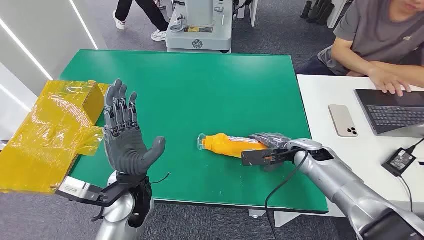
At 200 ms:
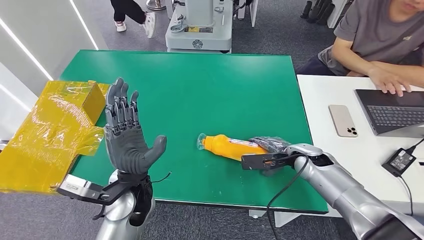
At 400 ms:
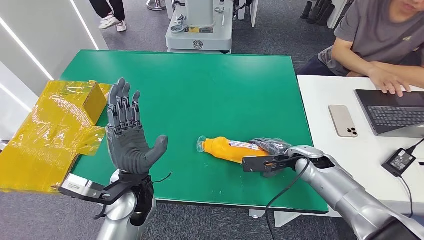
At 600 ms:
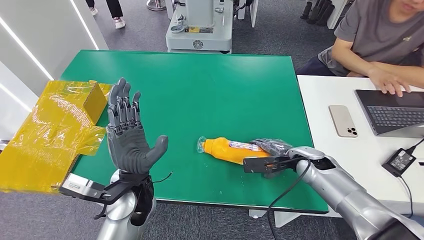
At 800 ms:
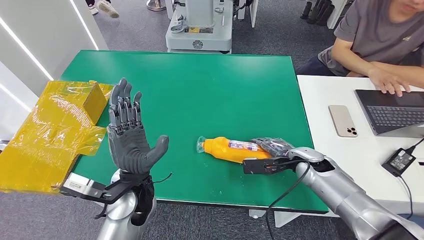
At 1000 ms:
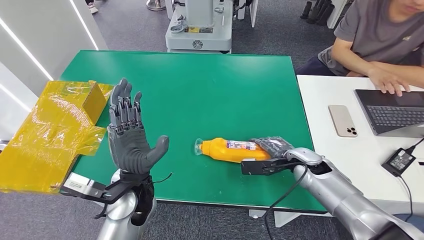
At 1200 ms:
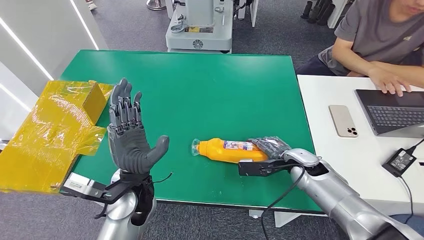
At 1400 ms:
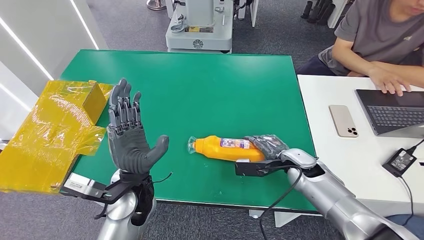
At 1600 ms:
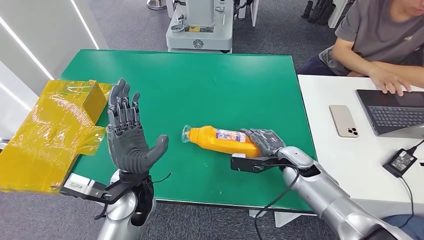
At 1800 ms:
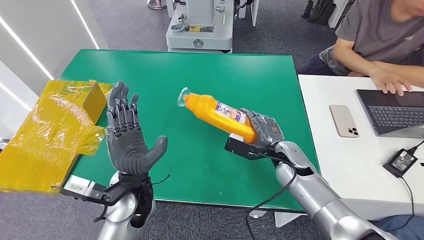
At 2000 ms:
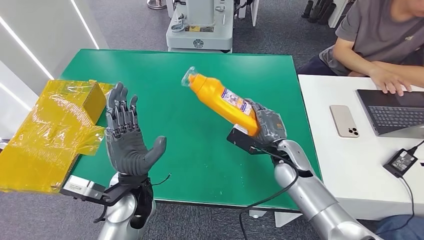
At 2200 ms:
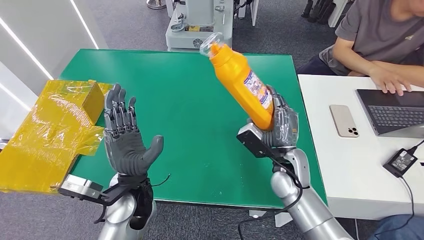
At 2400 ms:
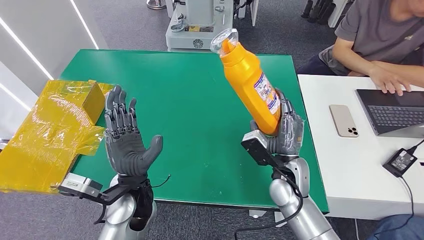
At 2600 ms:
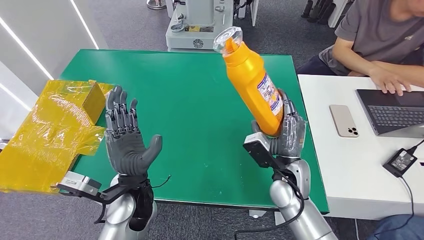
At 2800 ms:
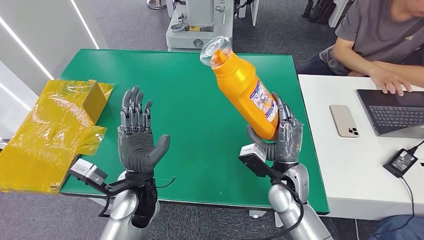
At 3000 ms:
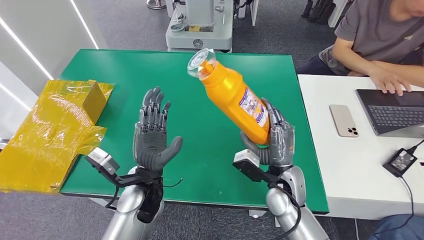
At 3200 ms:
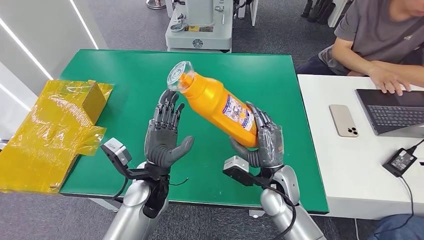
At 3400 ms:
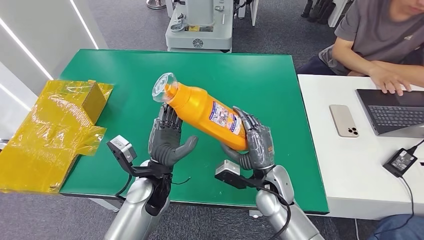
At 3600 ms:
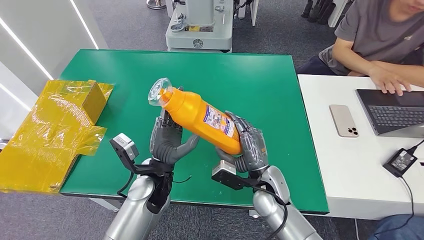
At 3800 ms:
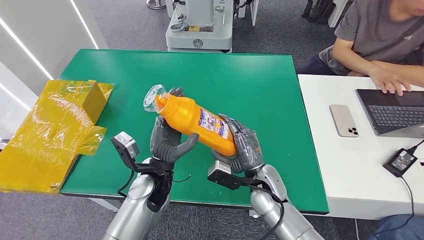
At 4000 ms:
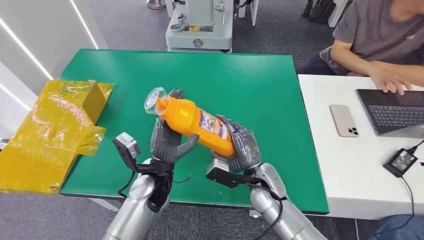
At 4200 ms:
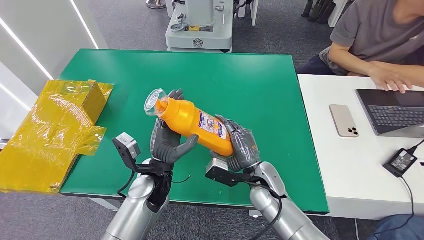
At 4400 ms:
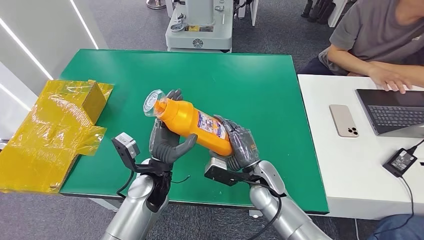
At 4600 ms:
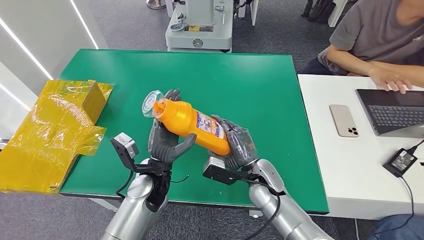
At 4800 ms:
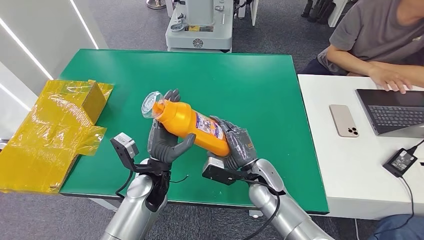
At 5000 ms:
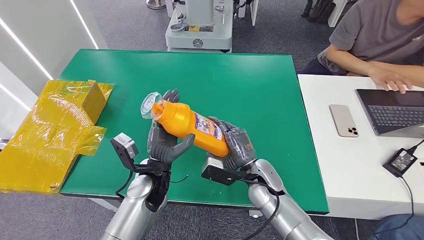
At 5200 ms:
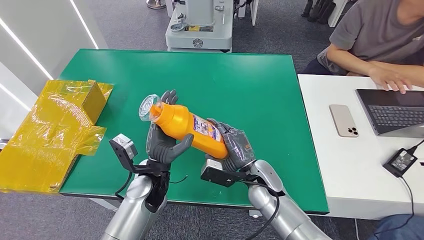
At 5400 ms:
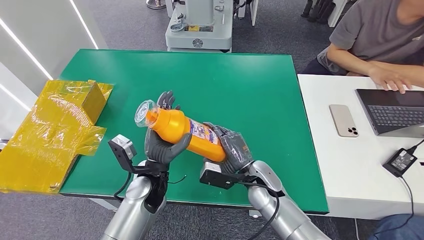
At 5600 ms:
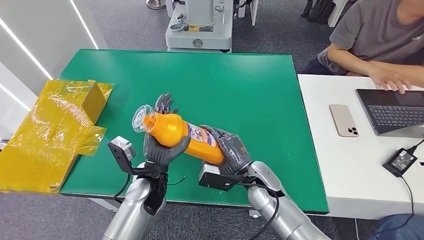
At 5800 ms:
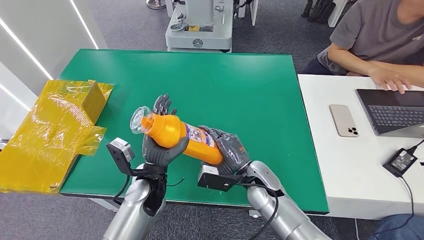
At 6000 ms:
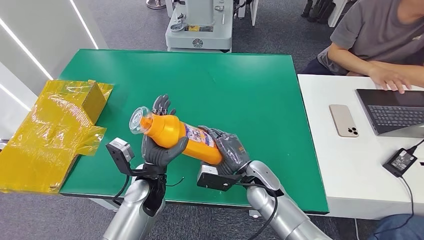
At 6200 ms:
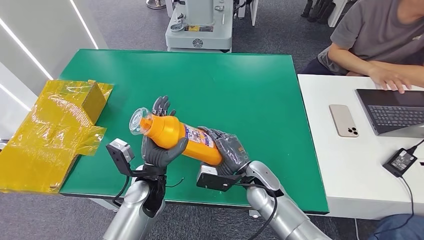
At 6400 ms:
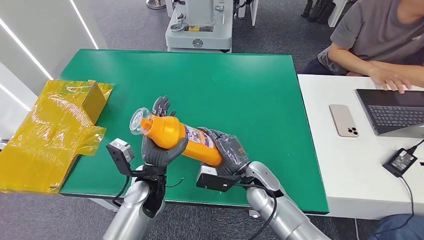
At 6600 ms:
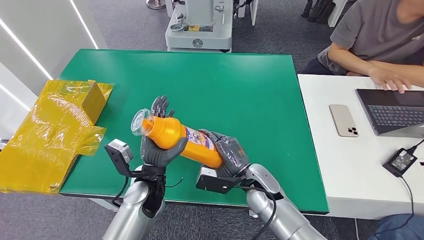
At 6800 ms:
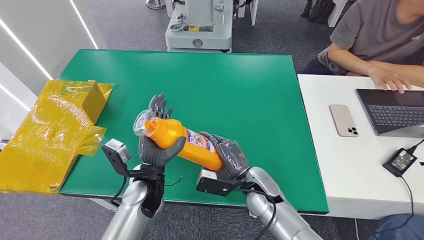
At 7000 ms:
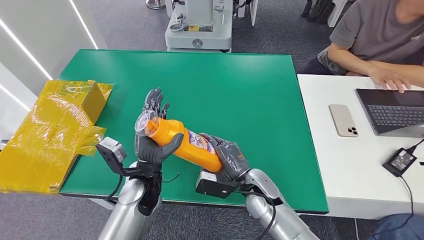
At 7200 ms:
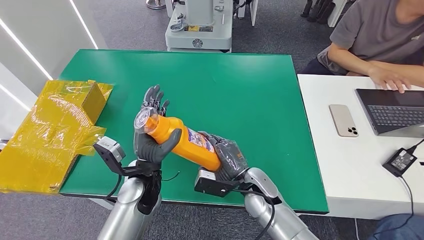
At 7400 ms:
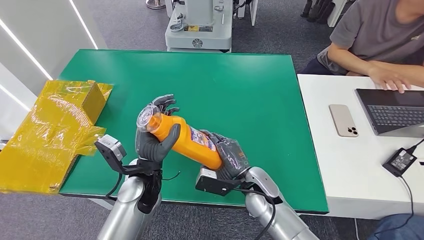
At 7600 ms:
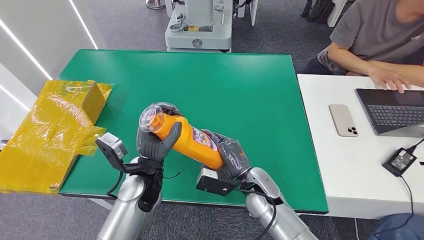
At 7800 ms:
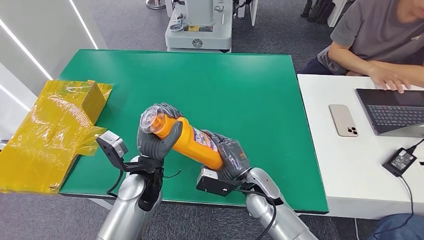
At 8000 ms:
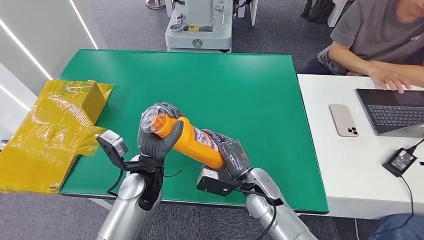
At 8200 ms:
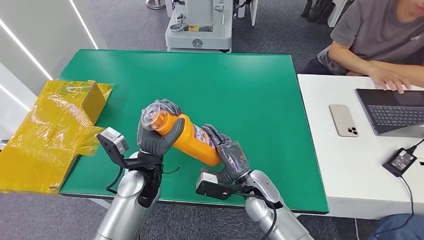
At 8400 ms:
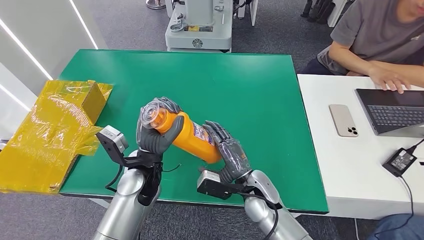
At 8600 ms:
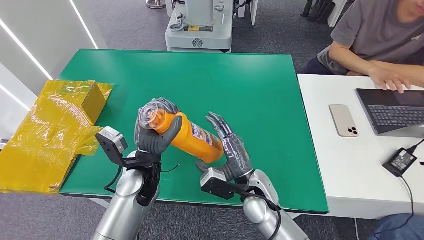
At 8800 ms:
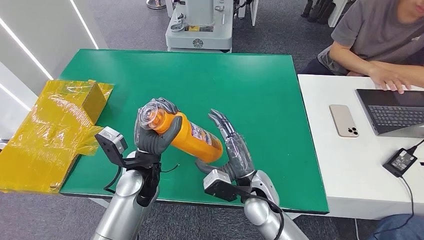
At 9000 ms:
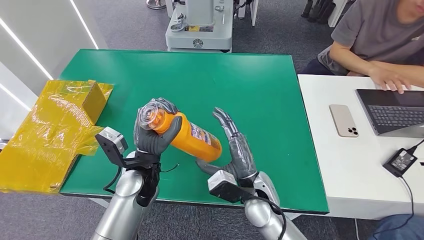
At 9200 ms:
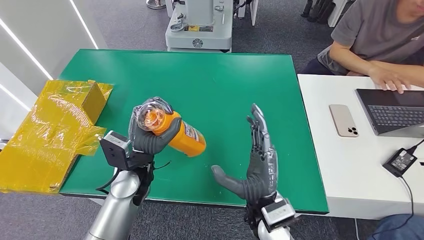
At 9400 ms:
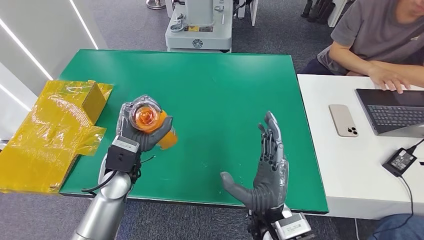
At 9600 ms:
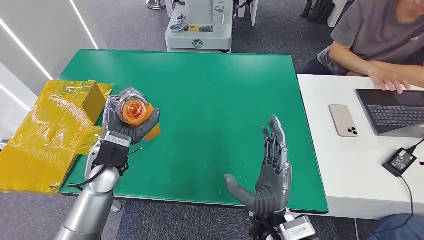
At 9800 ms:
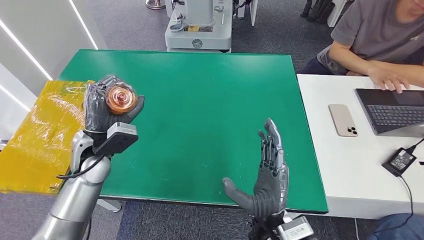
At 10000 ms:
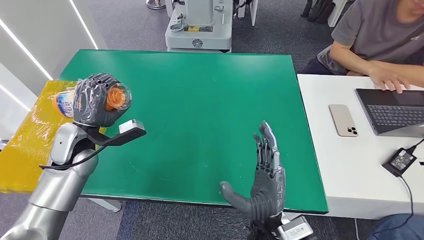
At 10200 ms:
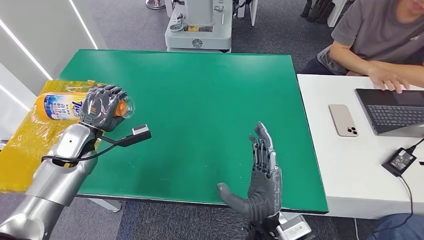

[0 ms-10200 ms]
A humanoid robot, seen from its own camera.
Step, 0 ms to 2000 ms: Pick up the bottle from the table.
Step, 2400 ms to 10200 ms: Turn the bottle to the front side.
1400 ms to 3000 ms: The right hand shifts approximately 10 cm to the left and backward.
4400 ms to 7200 ms: The hands make only small movements.
8800 ms to 10200 ms: The right hand travels backward by about 10 cm, while the left hand goes some 20 cm to the left.
